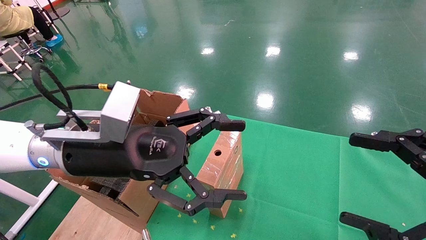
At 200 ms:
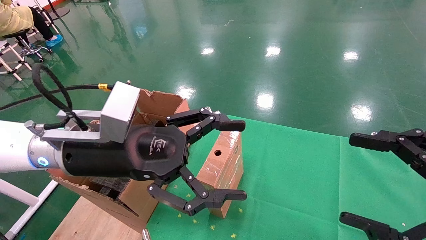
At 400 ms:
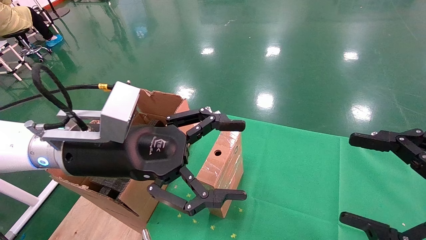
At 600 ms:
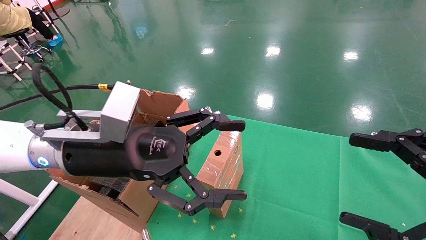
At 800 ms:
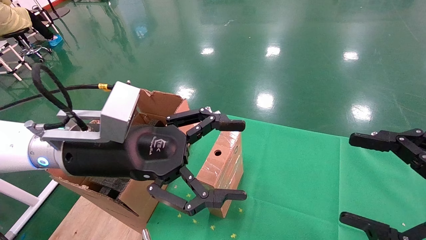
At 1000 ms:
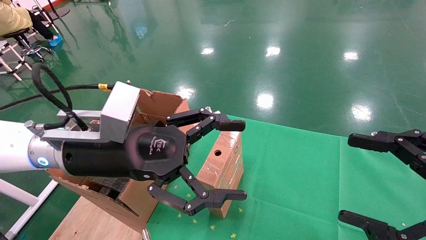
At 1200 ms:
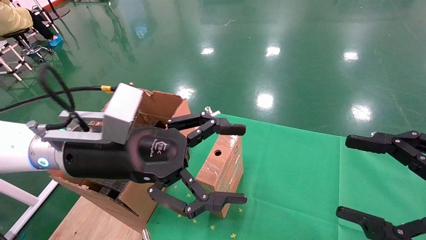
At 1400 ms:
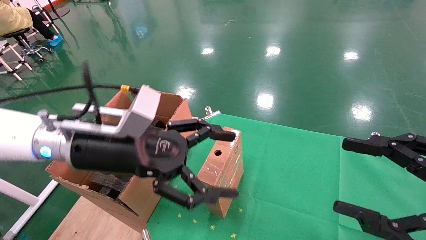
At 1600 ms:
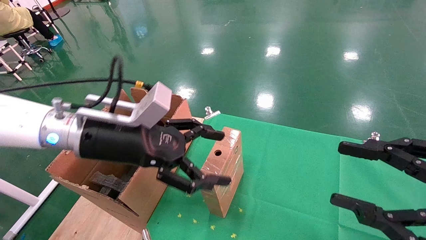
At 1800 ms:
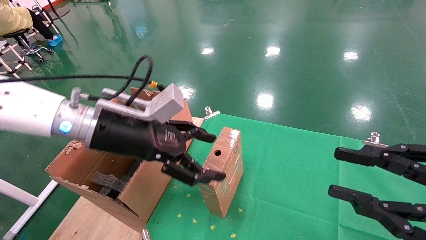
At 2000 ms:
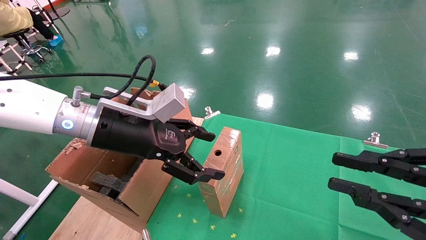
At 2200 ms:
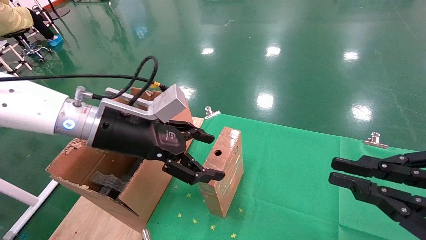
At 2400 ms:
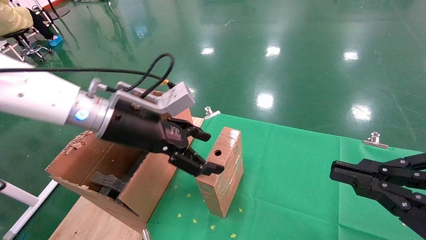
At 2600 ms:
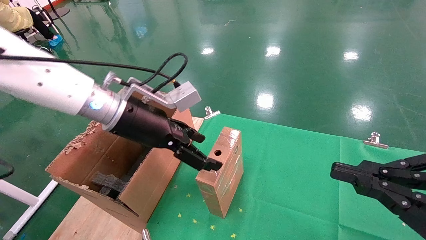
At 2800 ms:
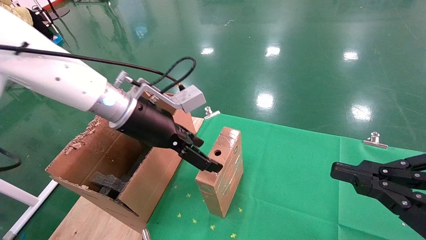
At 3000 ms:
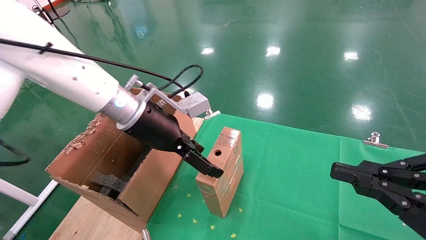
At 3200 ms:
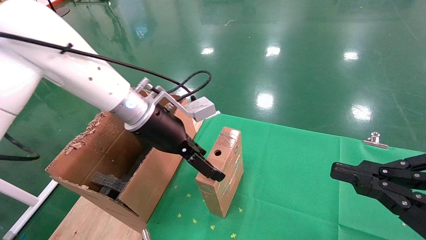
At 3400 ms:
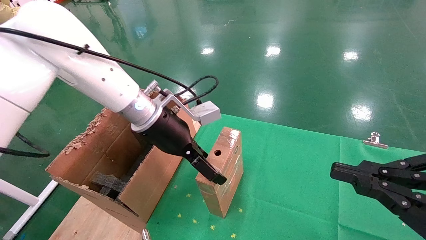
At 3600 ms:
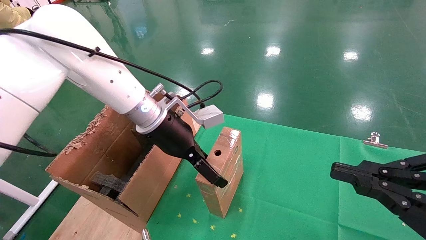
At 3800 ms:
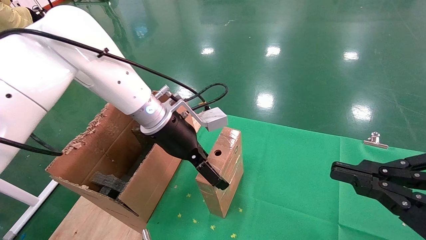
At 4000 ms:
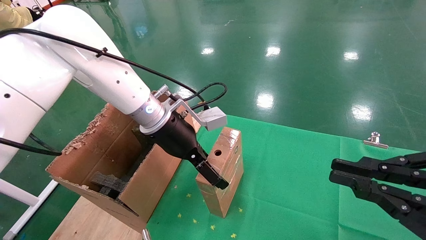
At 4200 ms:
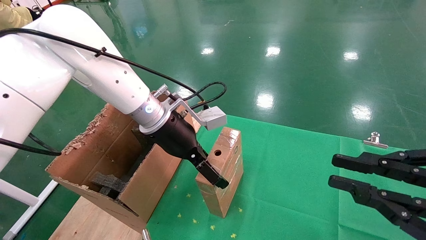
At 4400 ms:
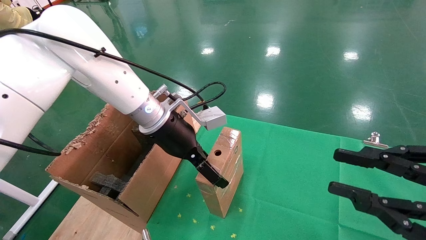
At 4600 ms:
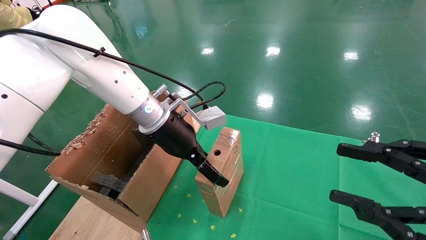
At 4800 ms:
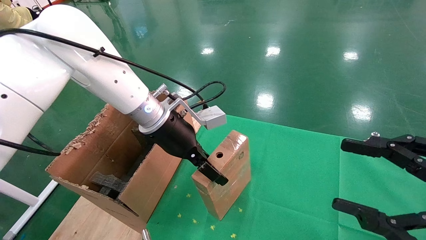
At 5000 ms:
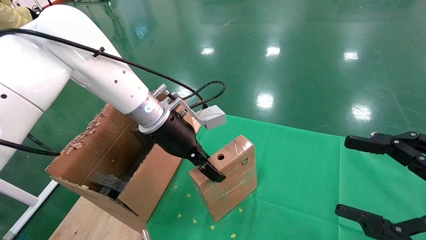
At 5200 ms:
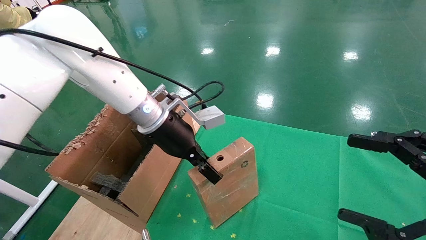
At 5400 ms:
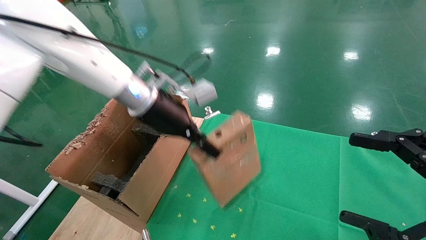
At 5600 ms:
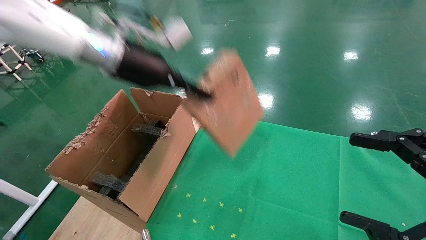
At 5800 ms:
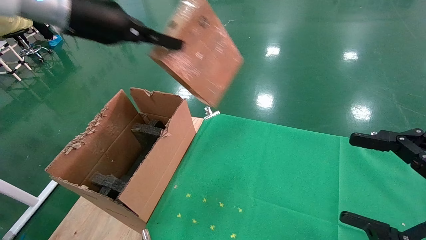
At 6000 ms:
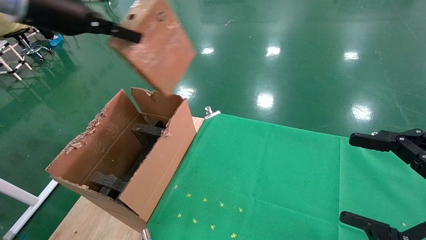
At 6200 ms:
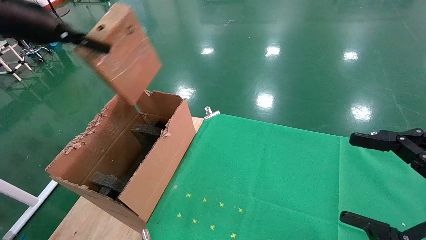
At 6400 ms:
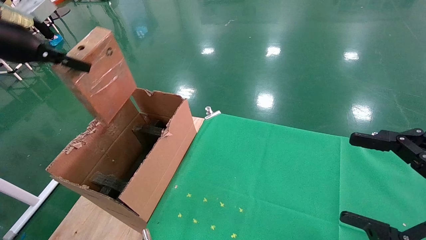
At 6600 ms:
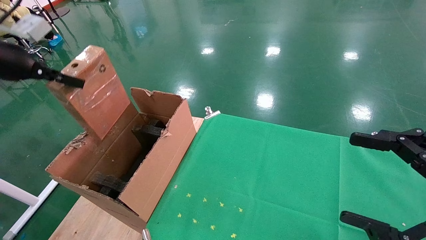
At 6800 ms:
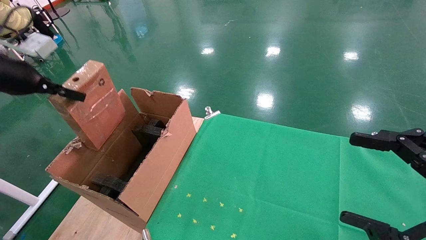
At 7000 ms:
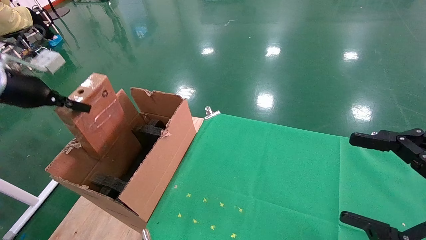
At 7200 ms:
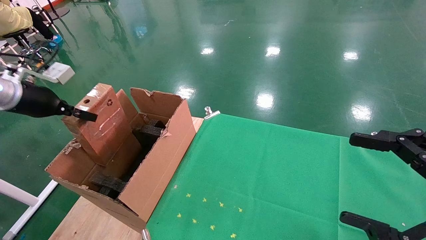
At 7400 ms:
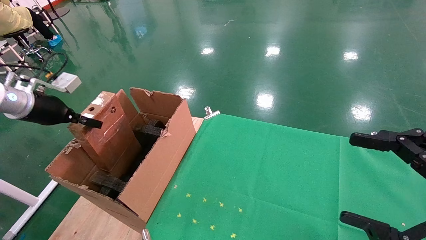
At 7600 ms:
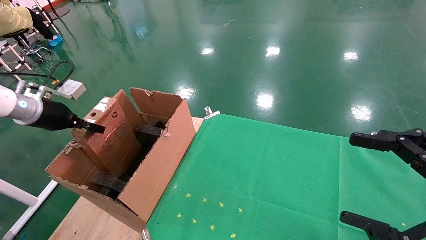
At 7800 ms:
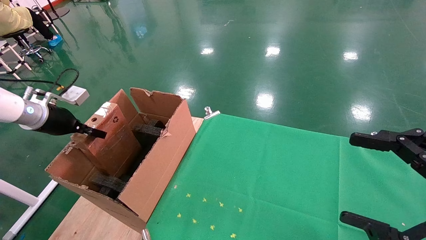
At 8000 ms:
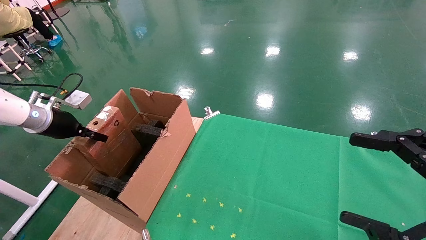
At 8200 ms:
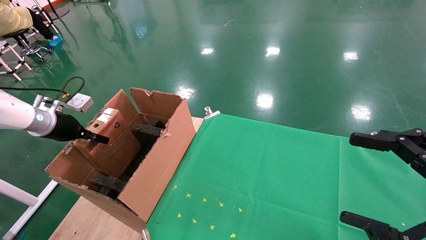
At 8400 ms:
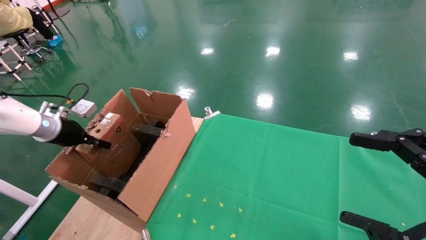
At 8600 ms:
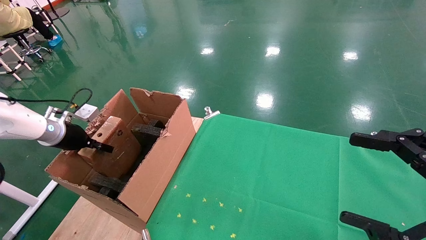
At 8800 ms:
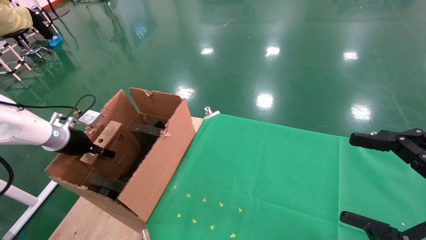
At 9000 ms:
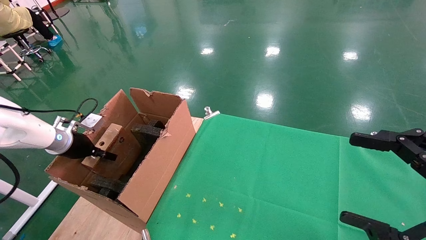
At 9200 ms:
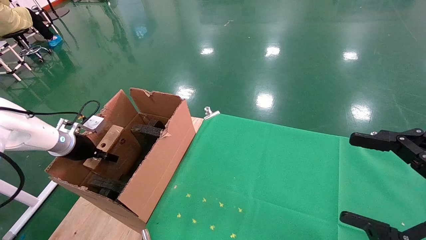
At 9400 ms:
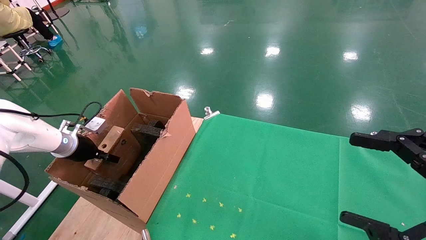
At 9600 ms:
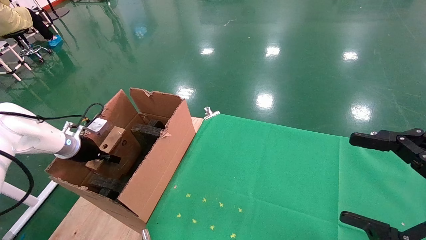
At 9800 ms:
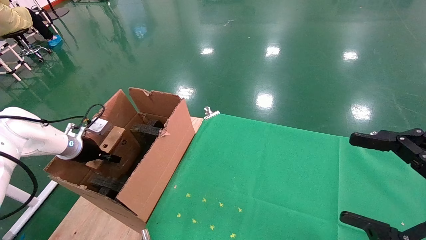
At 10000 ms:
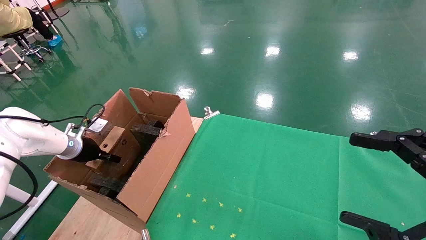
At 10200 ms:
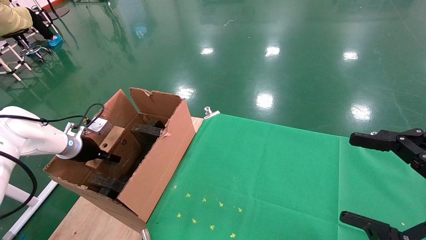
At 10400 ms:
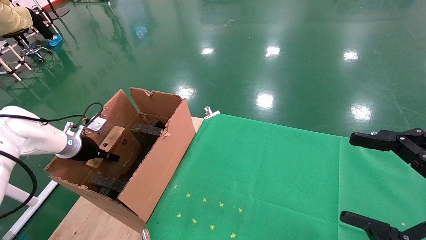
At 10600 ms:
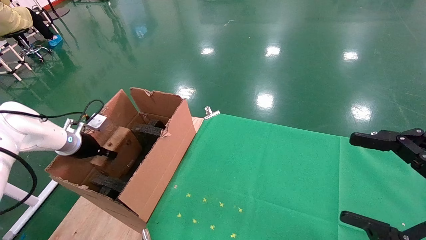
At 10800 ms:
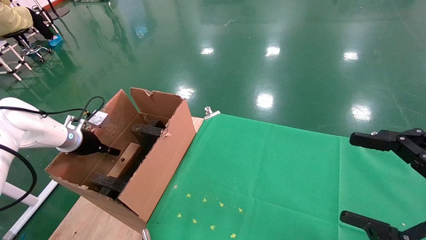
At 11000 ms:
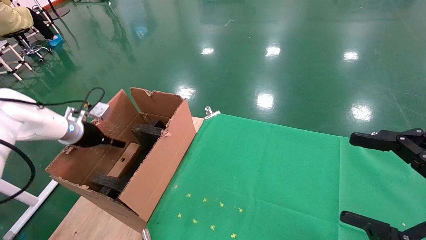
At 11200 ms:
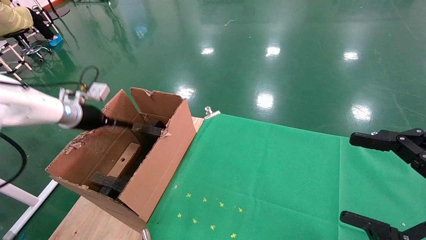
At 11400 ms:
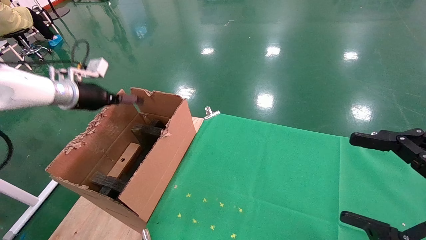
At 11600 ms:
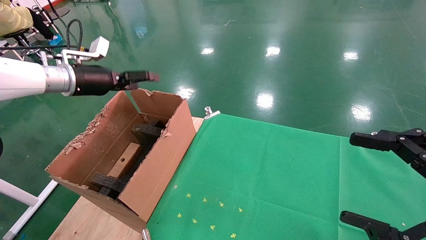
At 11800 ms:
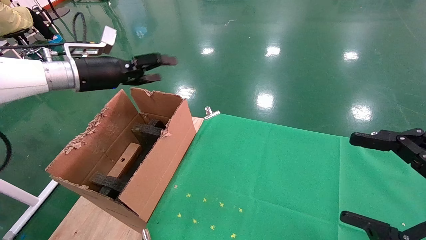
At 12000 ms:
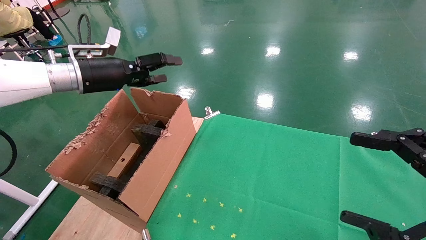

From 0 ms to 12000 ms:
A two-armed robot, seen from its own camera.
Task of the whole recording: using a robotic arm to pick up a cardboard box and palace it the carton.
Step, from 1400 ms to 5000 ms: Pick up the mouse and the power cord paper box.
Step, from 5200 ms to 11600 ms: Place the mouse and the power cord paper box into the container.
From 1600 ms to 3000 ms: The right gripper closes, while the left gripper moves forward, about 10 cm.
From 4400 ms to 6000 ms: The left gripper travels to the left and upward by roughly 25 cm, and closes up. Meanwhile the right gripper opens.
From 6000 ms to 7600 ms: The left gripper travels downward and to the left by roughly 25 cm.
From 7600 ms to 9000 ms: The left gripper goes some 10 cm downward.
From 9000 ms to 10400 ms: The grippers stay close to where they were, moving slightly.
From 10400 ms to 12000 ms: The left gripper travels upward and to the right by approximately 20 cm, and opens its fingers.

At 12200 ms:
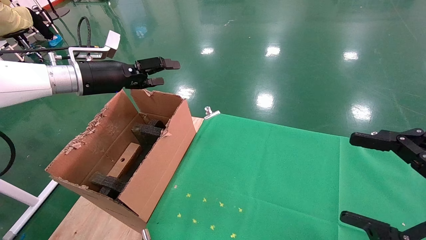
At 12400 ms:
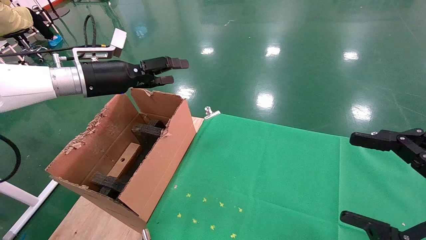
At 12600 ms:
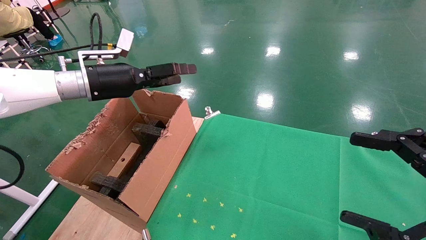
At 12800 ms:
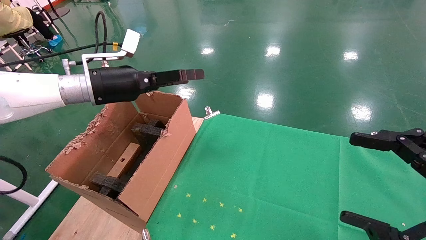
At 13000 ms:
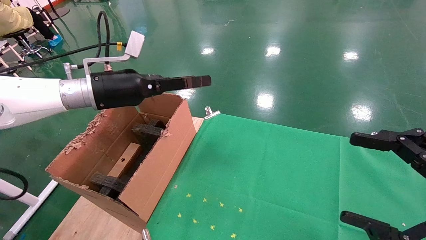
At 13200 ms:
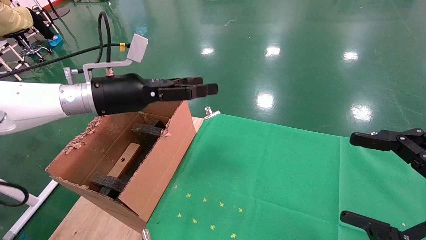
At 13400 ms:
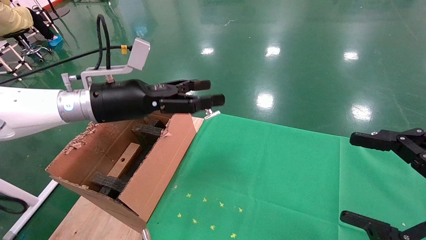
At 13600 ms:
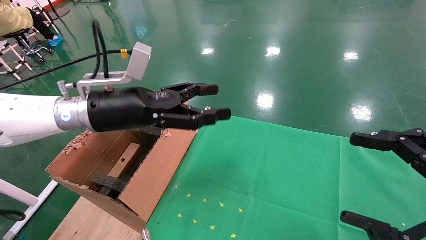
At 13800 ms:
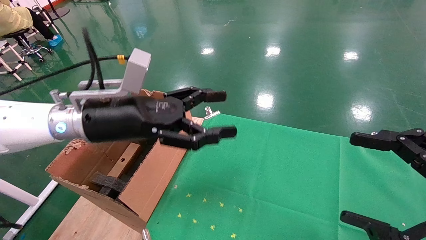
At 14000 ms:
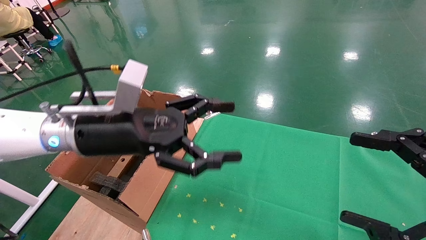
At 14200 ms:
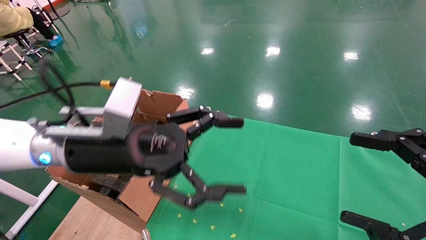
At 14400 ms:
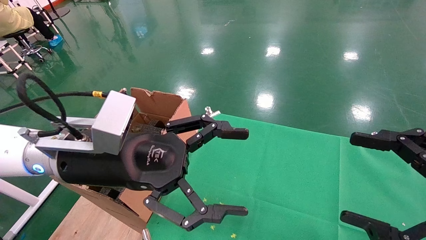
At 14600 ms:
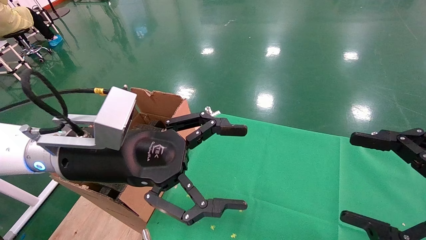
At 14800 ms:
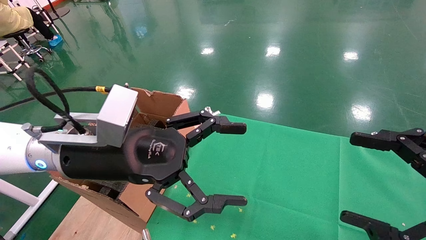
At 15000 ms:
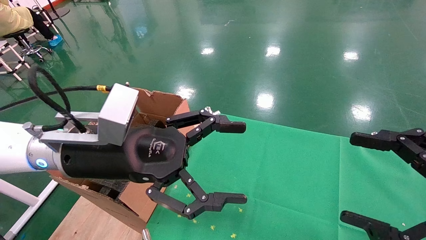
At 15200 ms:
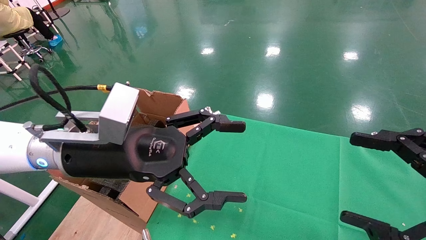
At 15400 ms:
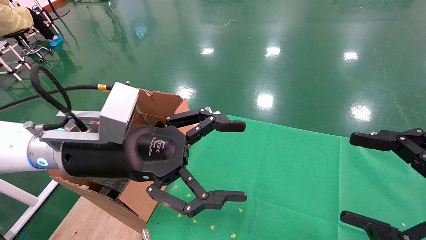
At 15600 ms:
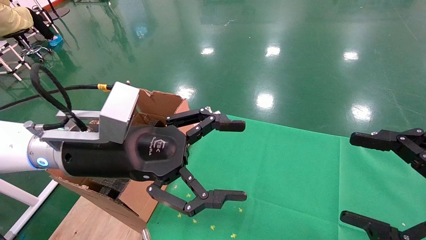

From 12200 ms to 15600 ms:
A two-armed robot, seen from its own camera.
Task of the whole recording: using a robotic arm to pick up a cardboard box and palace it the carton.
From 12200 ms to 13800 ms: The left gripper heads to the right and backward, covering about 15 cm.
From 13800 ms to 15600 ms: The left gripper shifts some 5 cm backward.
